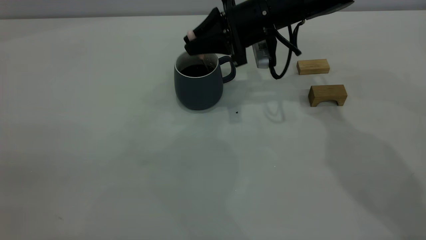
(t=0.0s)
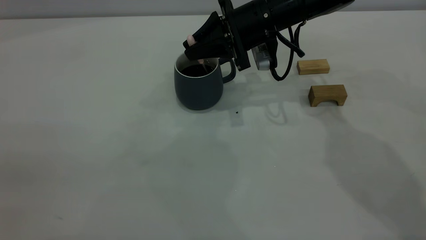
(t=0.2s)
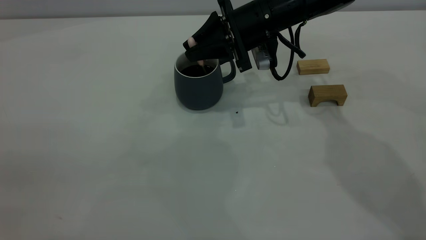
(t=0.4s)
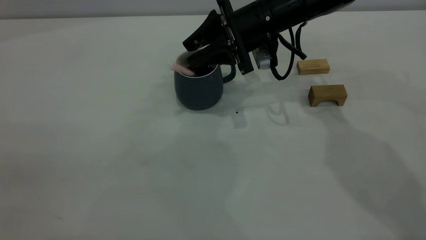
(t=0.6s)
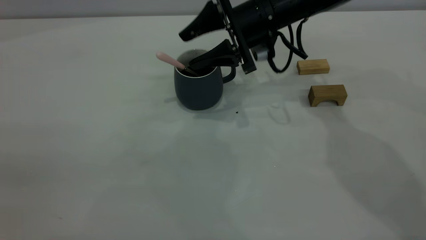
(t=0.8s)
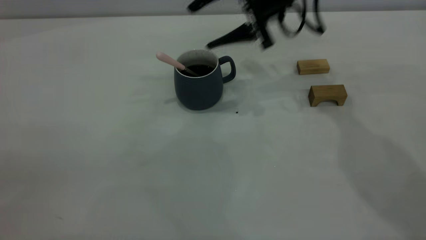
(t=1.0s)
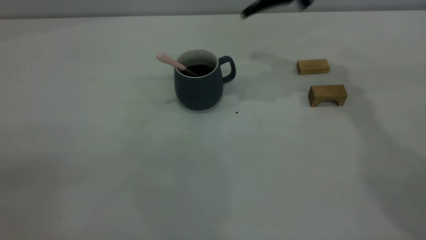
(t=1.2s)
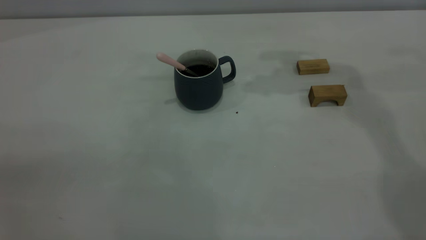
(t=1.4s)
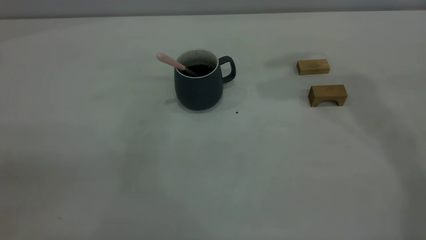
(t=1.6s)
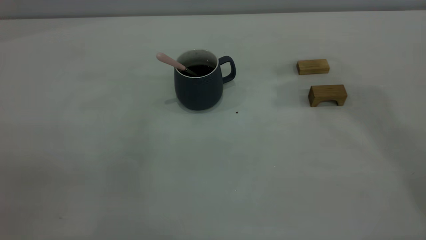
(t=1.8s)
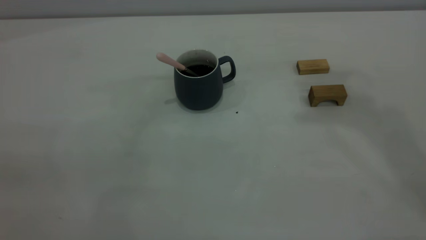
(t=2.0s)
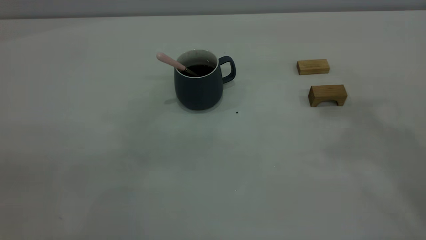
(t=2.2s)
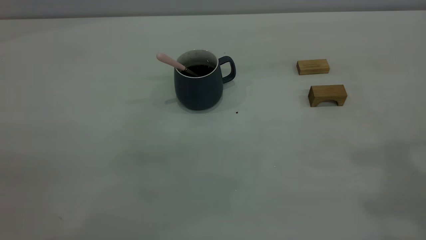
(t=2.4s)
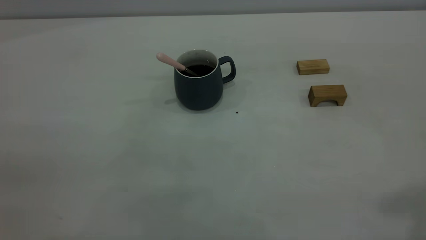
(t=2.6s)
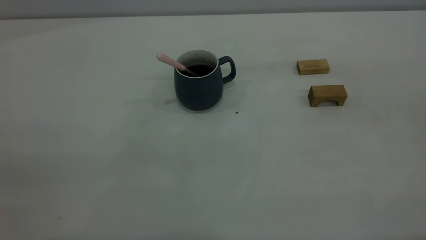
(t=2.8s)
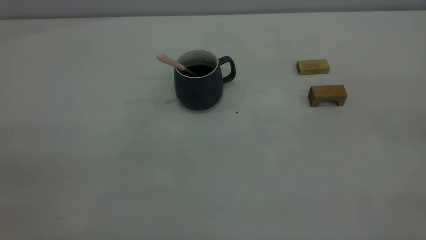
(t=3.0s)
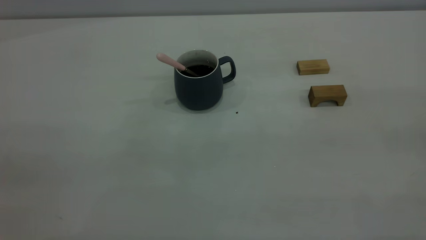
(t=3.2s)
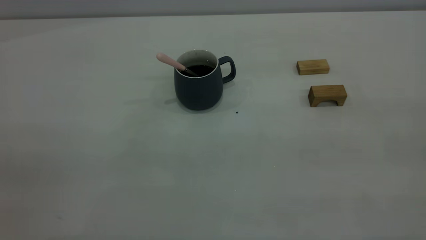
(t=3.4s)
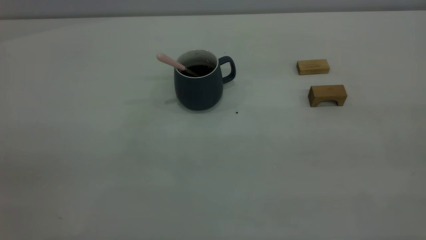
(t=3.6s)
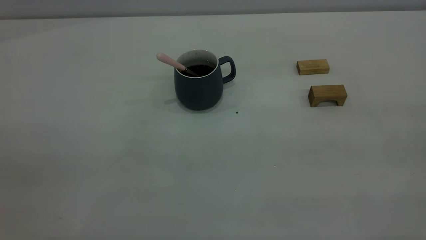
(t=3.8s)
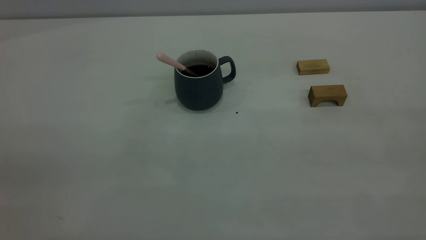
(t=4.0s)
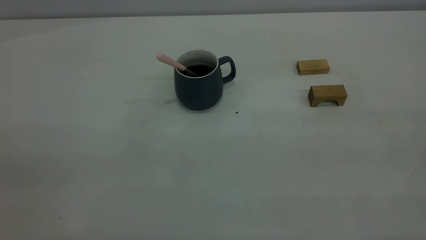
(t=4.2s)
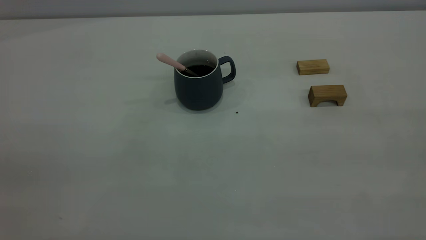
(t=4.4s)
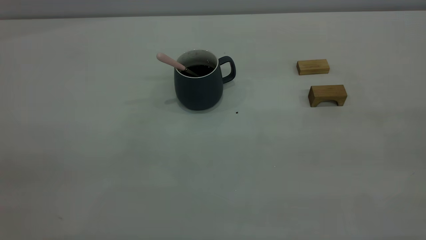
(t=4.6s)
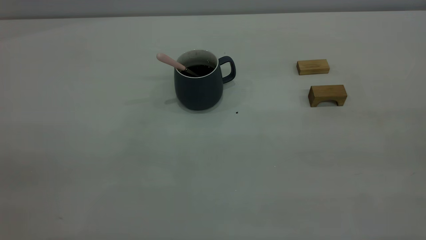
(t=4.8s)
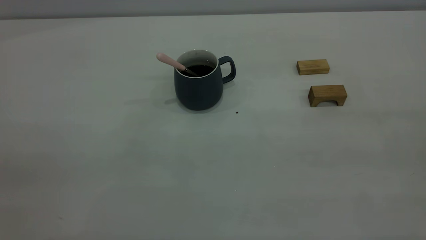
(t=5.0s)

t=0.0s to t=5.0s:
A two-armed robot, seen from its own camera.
t=0.0s to t=1.6s: The right gripper goes some 30 cm upward, and opens.

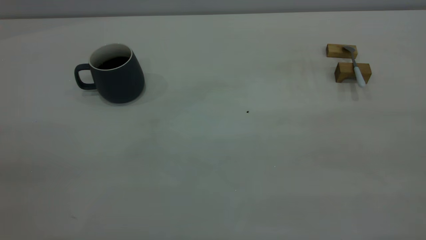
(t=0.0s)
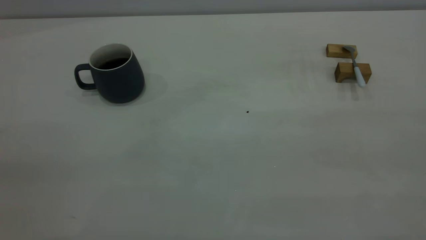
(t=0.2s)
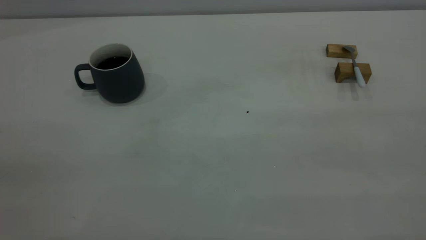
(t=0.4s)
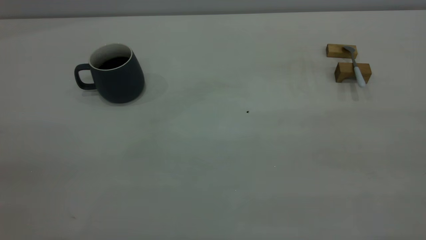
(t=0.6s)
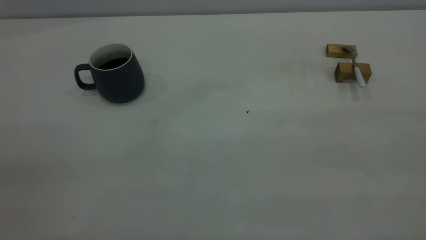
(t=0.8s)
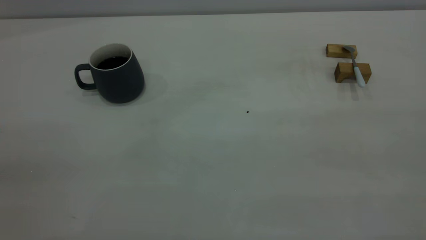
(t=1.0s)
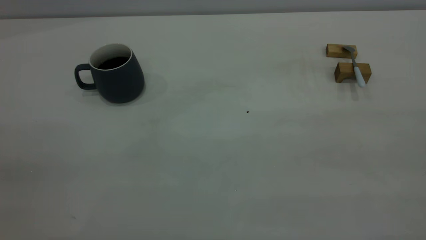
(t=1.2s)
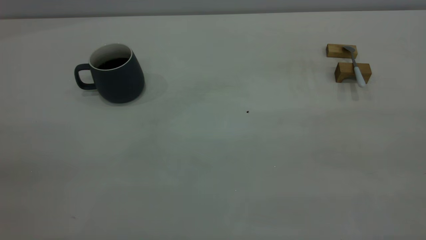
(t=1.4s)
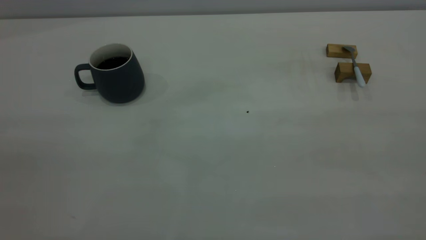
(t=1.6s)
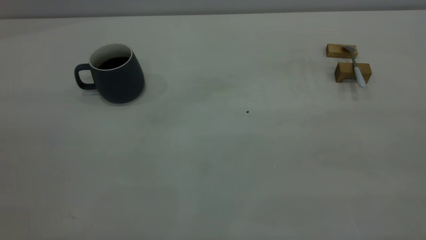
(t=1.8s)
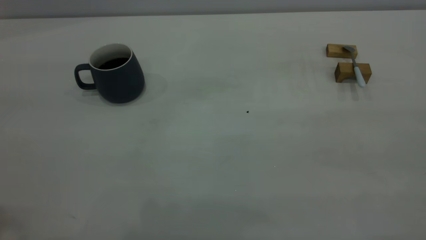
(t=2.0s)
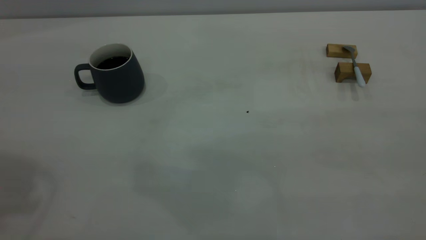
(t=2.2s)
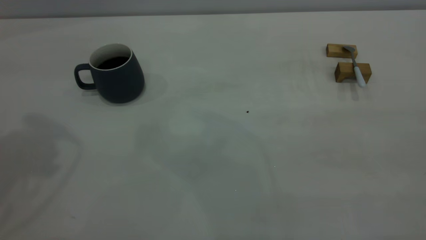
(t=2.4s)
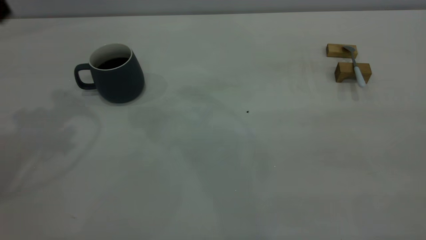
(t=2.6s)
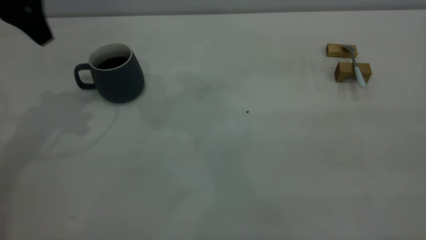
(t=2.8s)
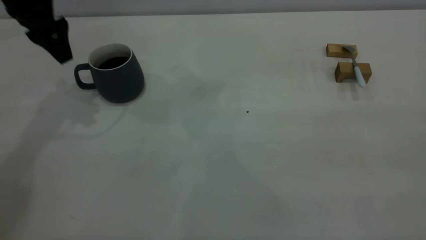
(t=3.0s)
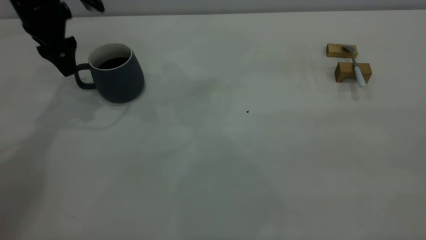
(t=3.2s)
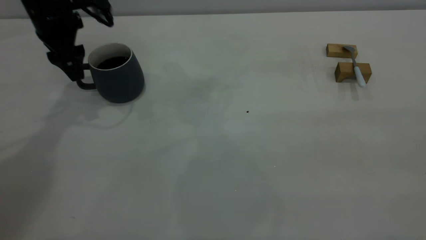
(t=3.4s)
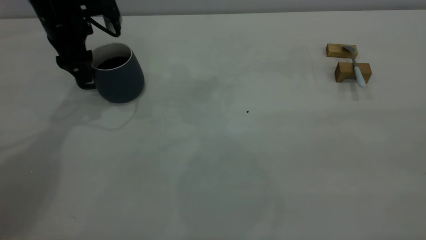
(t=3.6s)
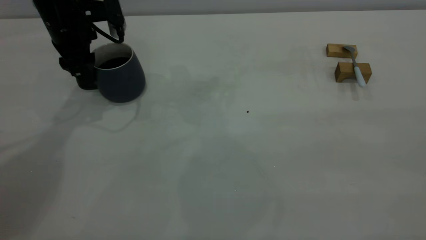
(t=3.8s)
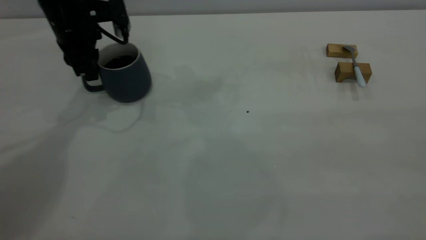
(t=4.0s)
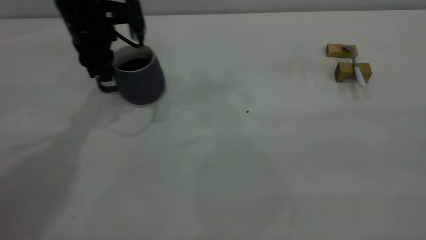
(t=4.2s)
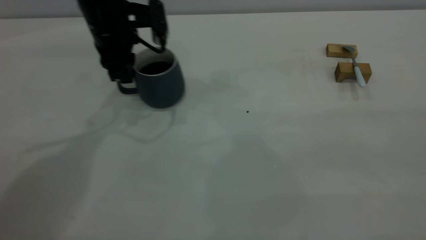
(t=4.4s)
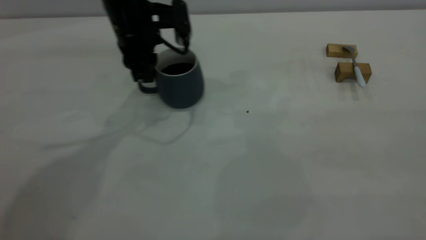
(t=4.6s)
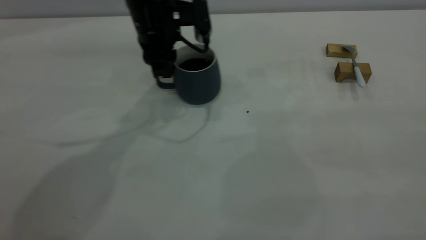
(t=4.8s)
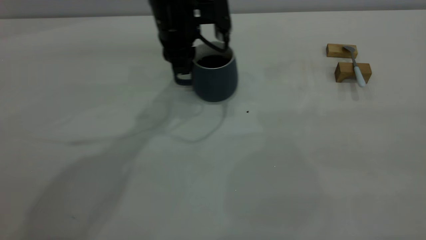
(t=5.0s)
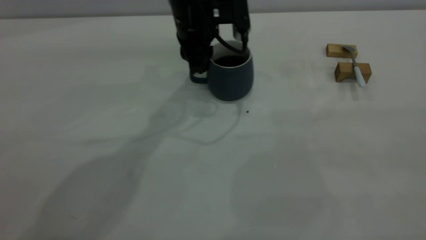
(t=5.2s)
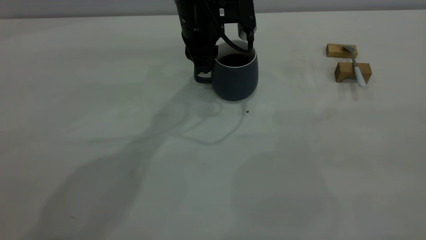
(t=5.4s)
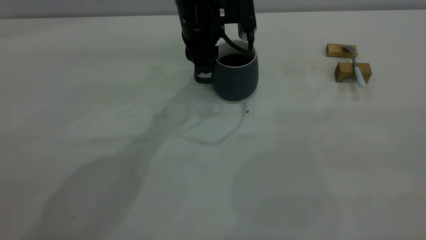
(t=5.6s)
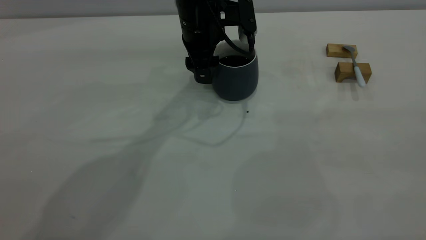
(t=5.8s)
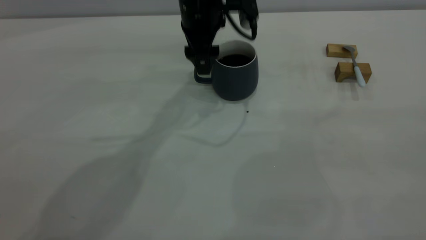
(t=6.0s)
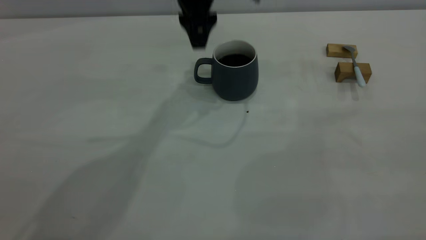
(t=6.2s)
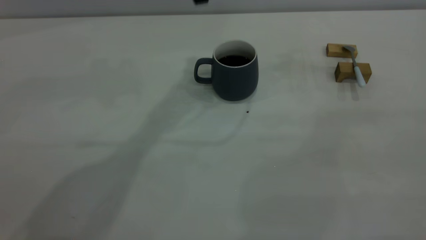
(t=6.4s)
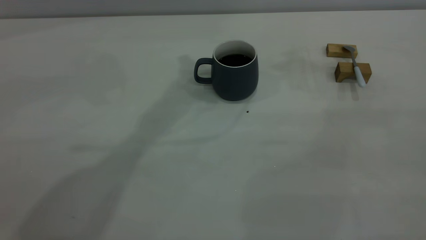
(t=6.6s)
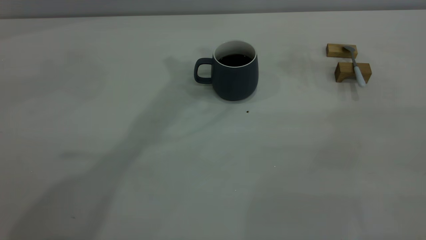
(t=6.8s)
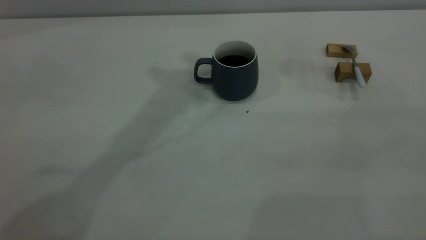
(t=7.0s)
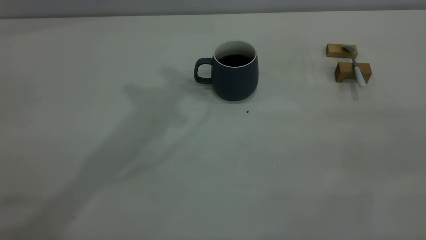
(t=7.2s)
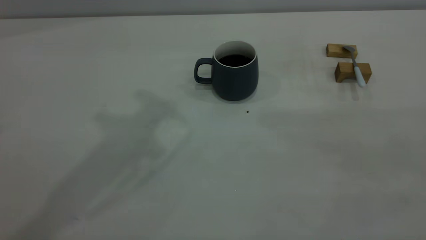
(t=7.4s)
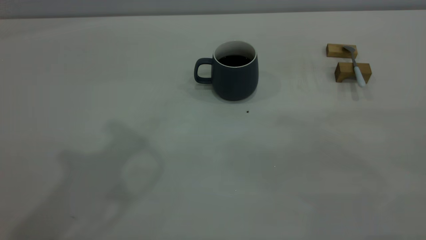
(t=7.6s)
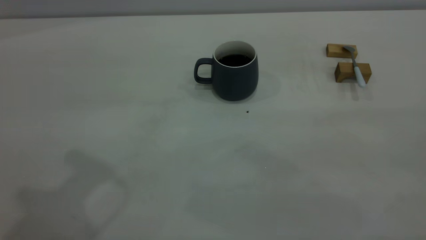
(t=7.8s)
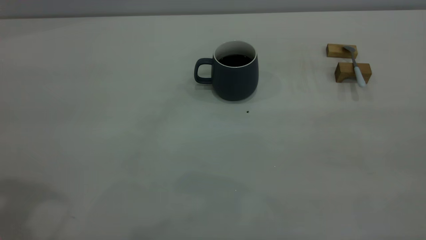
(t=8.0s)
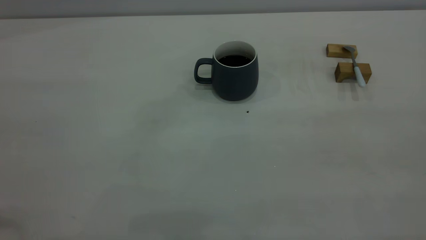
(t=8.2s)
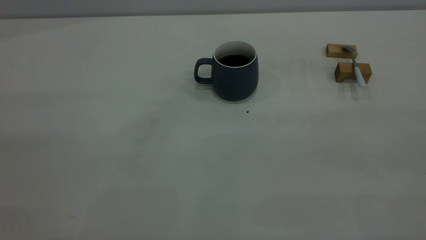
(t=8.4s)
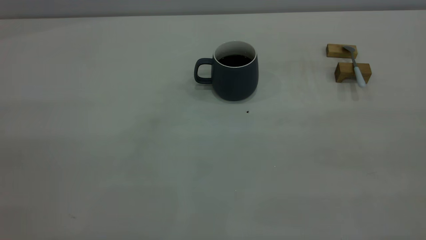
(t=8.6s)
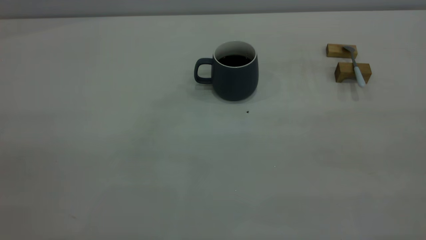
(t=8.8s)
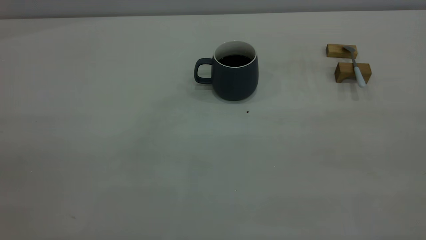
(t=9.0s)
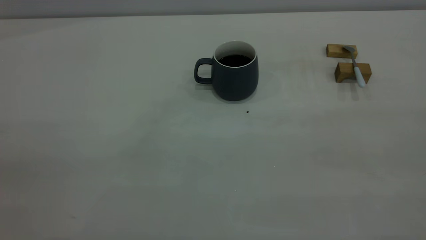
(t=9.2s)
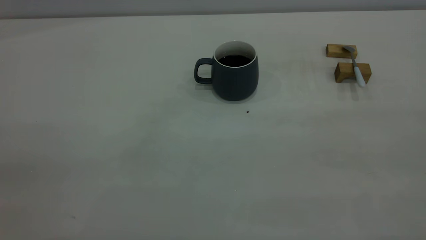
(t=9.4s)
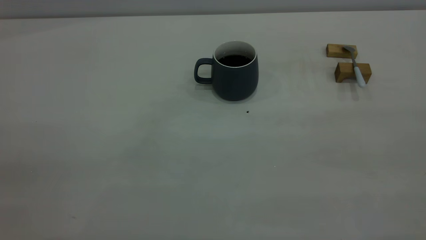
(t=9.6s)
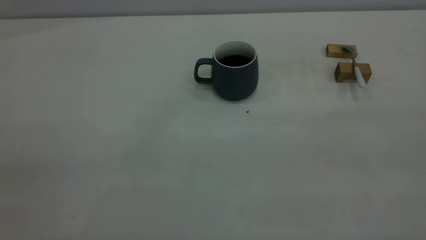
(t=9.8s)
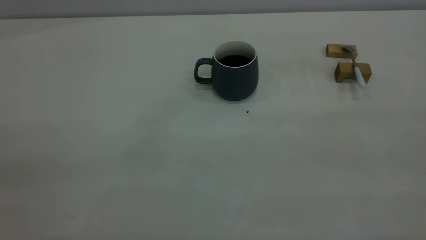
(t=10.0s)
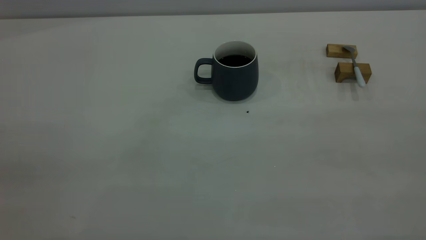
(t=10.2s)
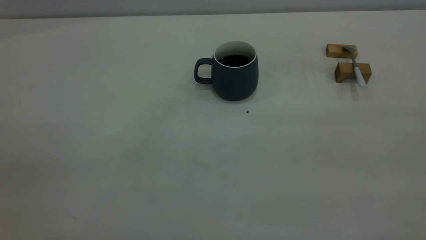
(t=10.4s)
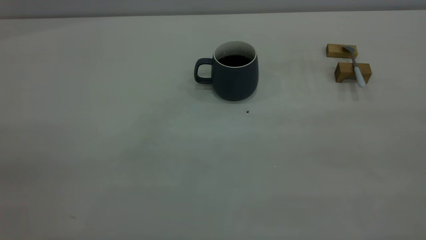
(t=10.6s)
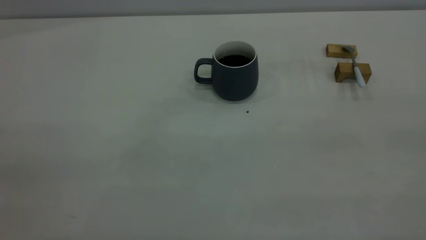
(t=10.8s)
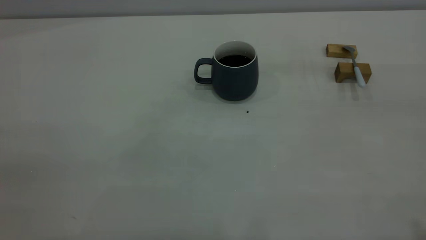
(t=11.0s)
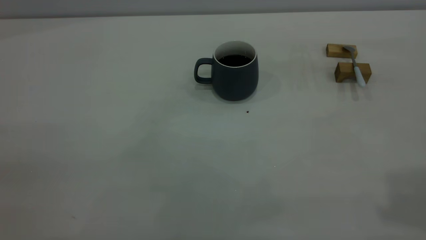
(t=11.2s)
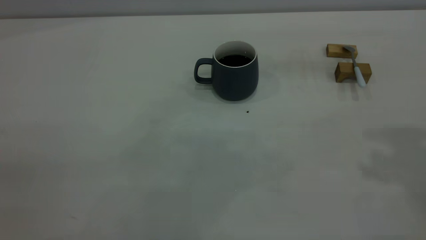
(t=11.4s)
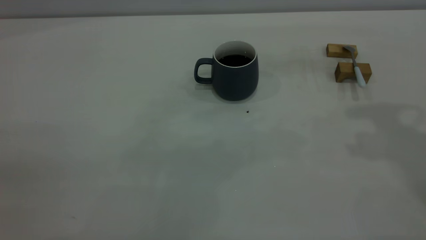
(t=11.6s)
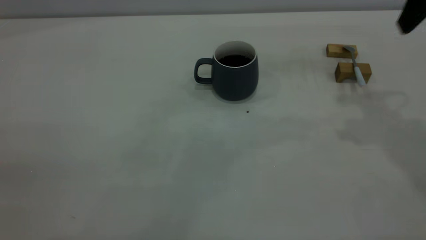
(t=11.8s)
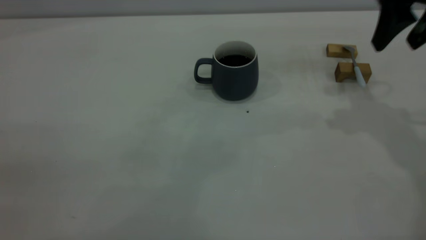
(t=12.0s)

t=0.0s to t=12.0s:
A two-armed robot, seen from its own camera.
Step, t=0.0s to t=6.2s: Move the cup with coffee to the center of view.
t=1.6s to t=3.0s: The left gripper heads forward and downward, covering approximately 50 cm, and opens.
t=3.0s to t=4.4s: The left gripper shifts approximately 15 cm to the right and downward, and closes its fingers.
t=4.4s to t=6.0s: The left gripper is displaced to the right by approximately 15 cm, and opens its fingers.
t=6.0s to t=7.6s: The left gripper goes roughly 35 cm backward, upward and to the left, and closes.
t=10.4s to t=12.0s: The right gripper moves forward, roughly 35 cm, and opens up.
